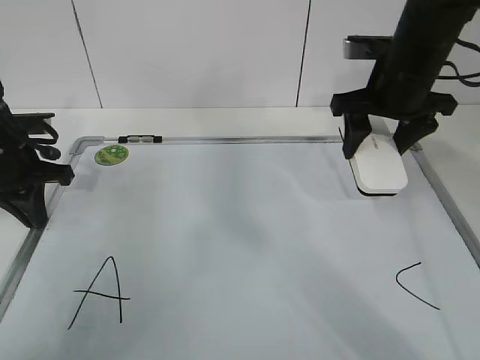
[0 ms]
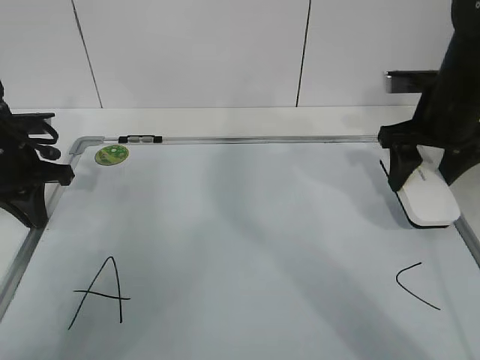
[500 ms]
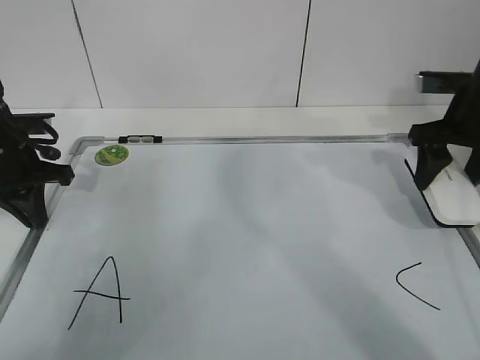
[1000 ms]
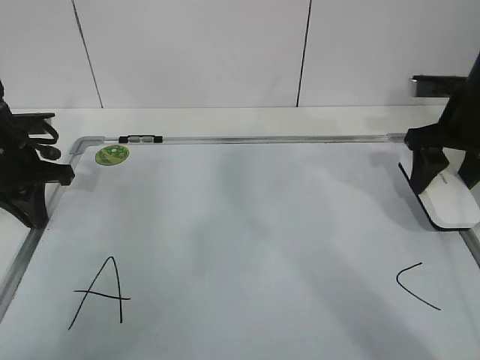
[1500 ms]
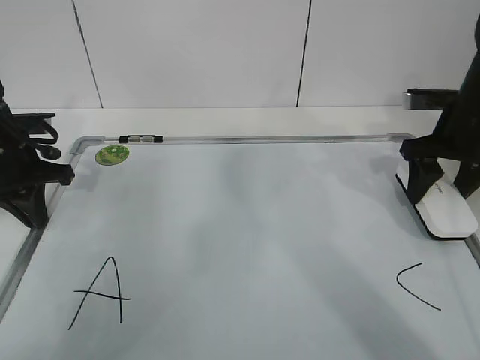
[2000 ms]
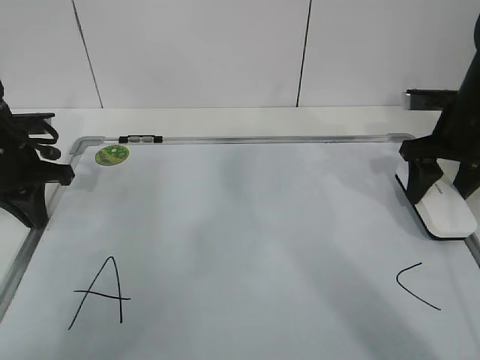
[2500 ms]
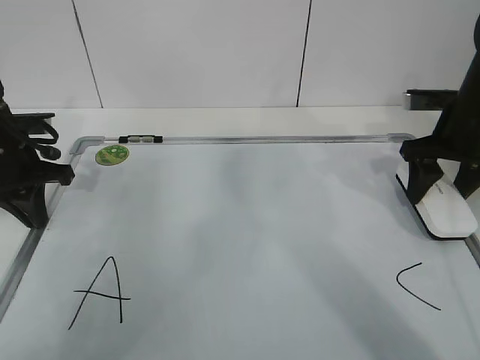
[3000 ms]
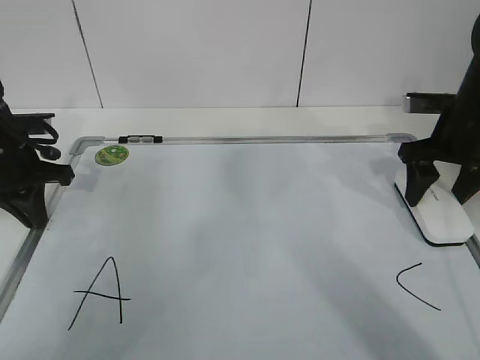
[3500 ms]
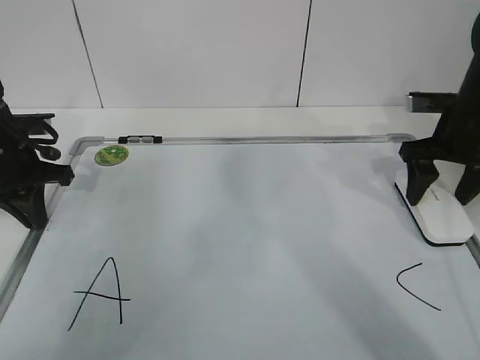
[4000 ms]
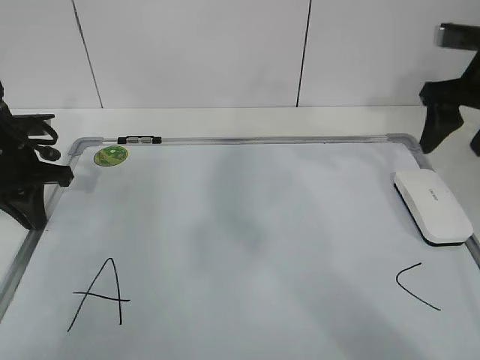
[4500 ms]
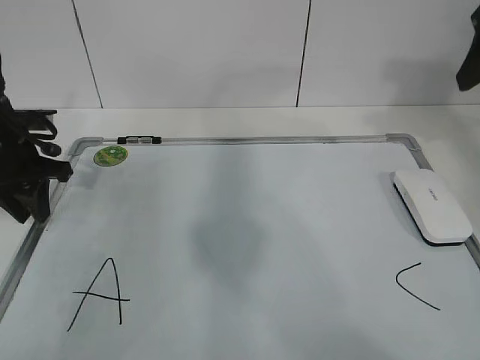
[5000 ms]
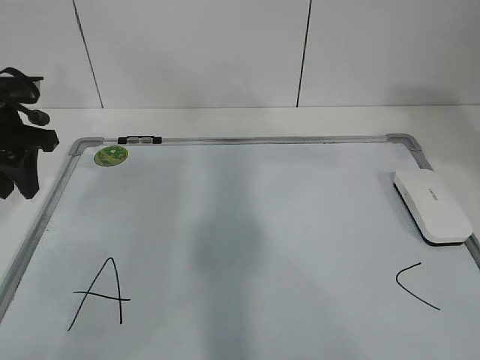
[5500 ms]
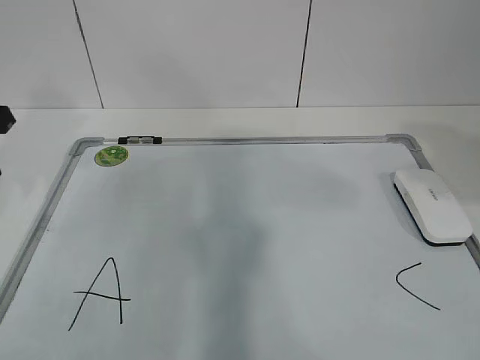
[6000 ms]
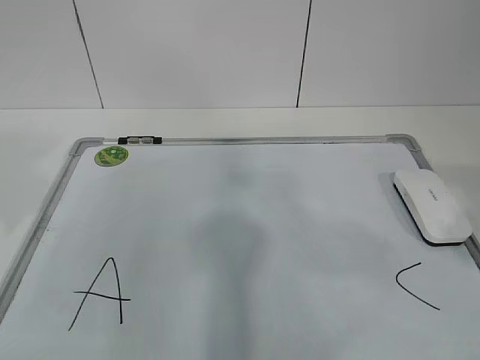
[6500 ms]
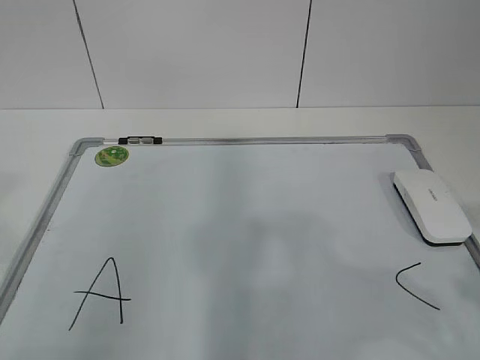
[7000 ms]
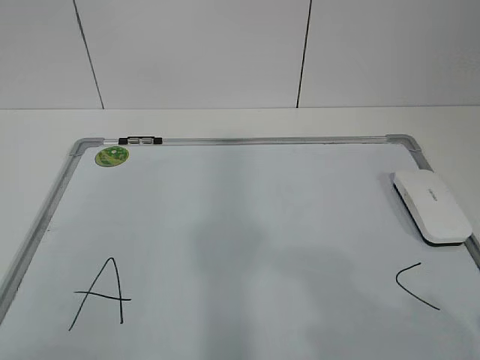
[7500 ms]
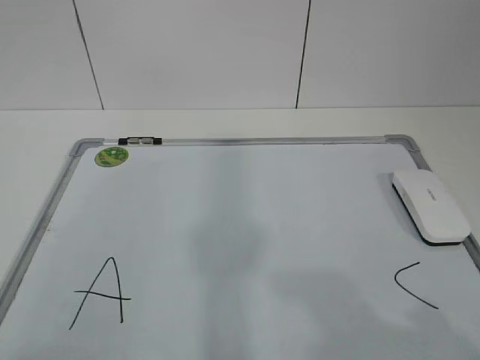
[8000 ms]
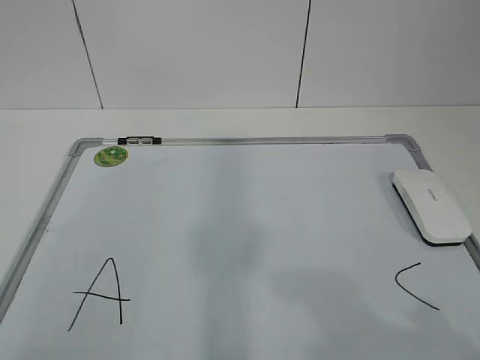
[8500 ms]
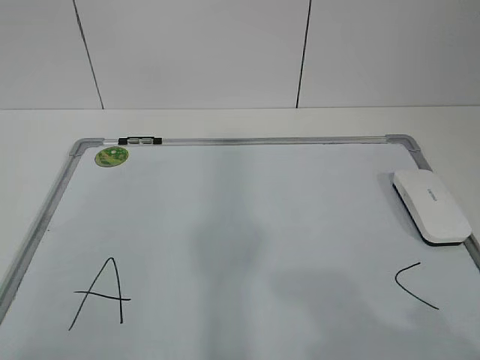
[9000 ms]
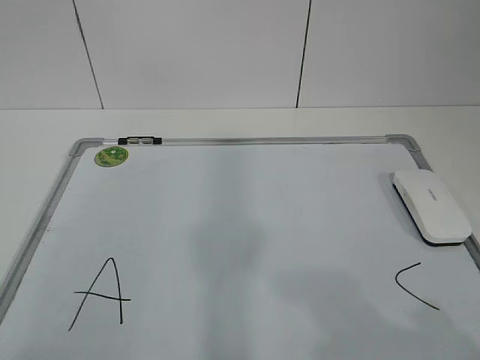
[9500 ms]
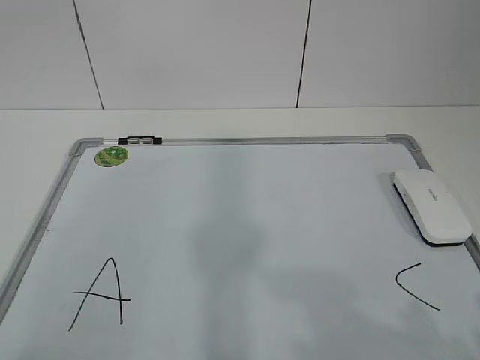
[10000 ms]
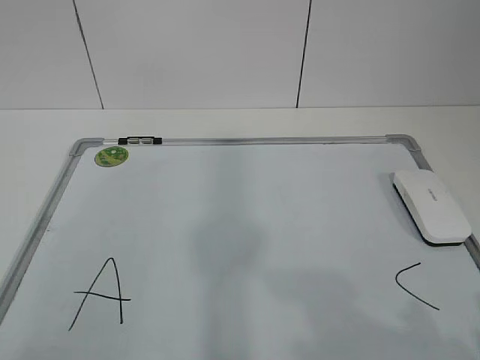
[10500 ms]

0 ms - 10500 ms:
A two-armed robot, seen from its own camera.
Task of the whole recording: pick up the eraser on the blackboard and erase the letter "B".
0 ms - 2000 ms: The right gripper travels to the right and downward by about 10 cm.
2000 ms - 4000 ms: The right gripper opens up.
4000 ms - 6500 ms: The left gripper heads backward and upward, covering approximately 25 cm, and opens up. Meanwhile the right gripper shifts some 35 cm backward and upward, and closes up.
6500 ms - 8500 ms: The right gripper shifts roughly 15 cm backward and downward.
8500 ms - 10500 ms: Both grippers stay put.

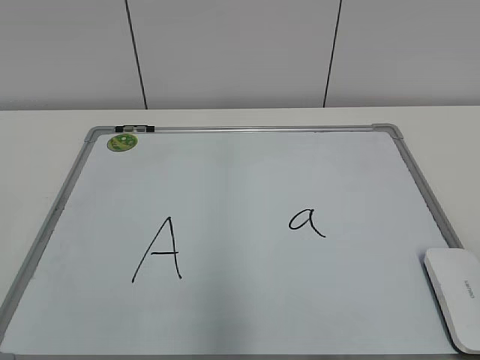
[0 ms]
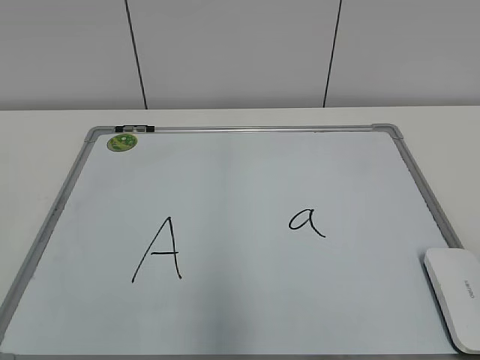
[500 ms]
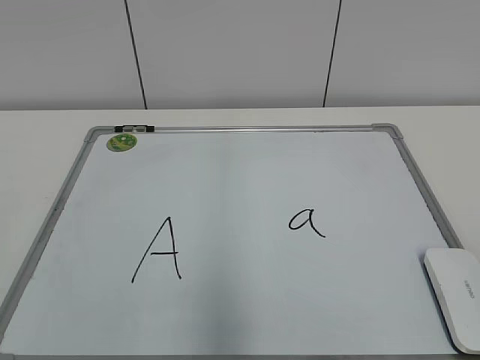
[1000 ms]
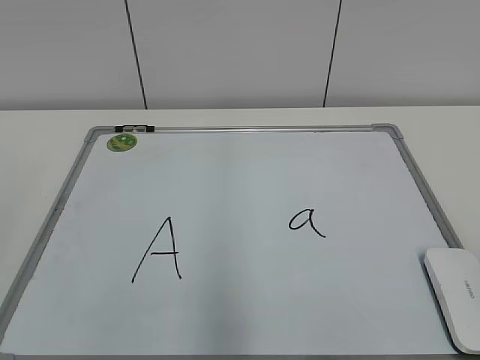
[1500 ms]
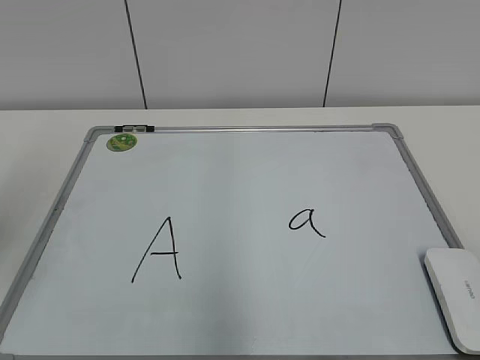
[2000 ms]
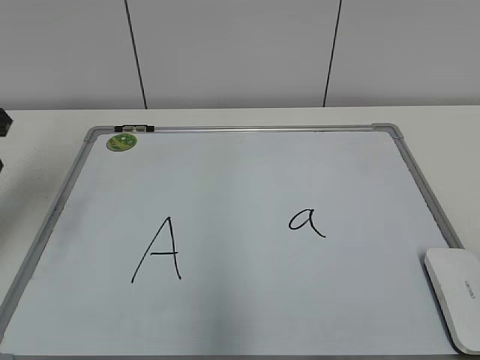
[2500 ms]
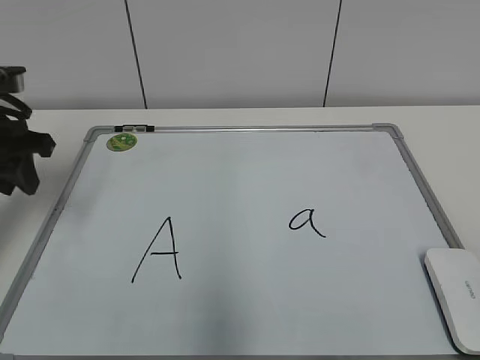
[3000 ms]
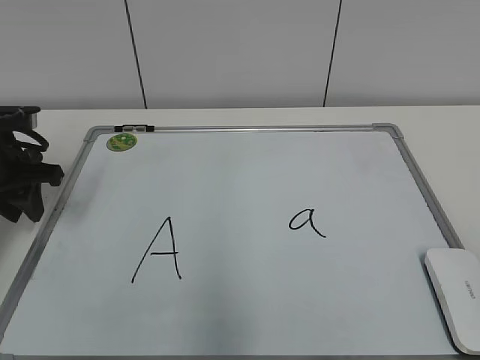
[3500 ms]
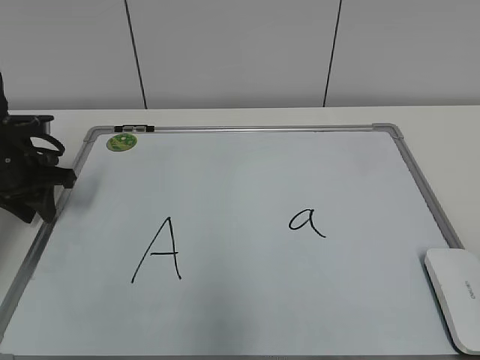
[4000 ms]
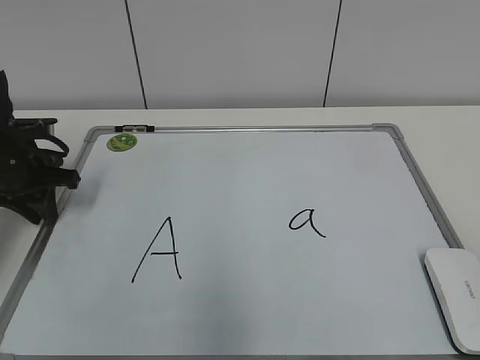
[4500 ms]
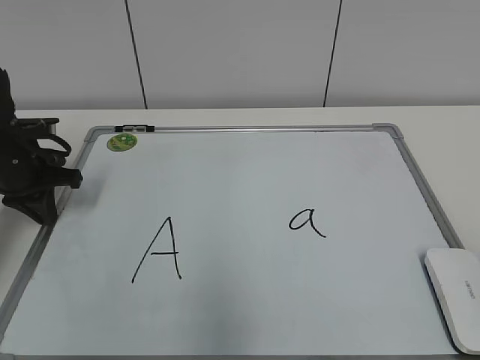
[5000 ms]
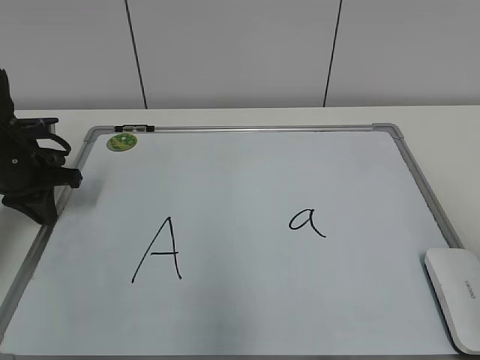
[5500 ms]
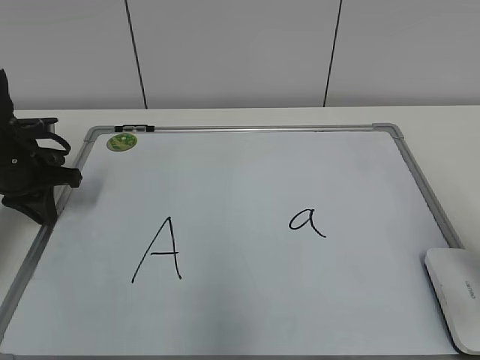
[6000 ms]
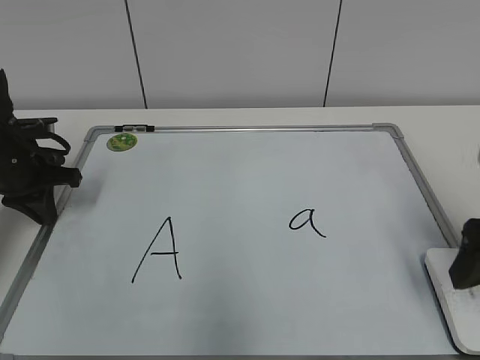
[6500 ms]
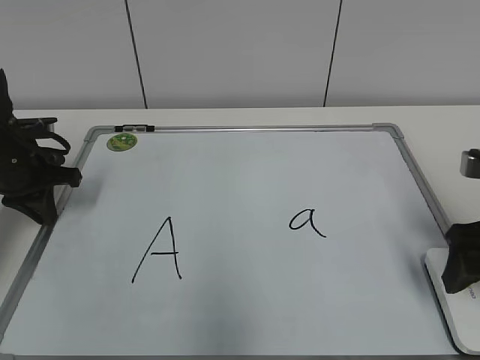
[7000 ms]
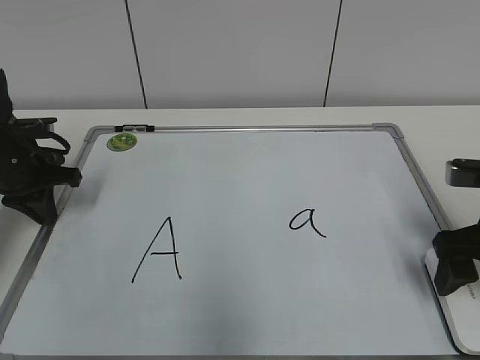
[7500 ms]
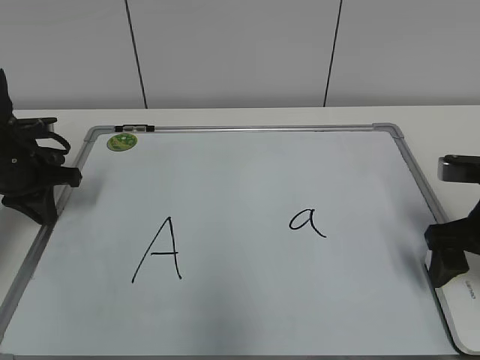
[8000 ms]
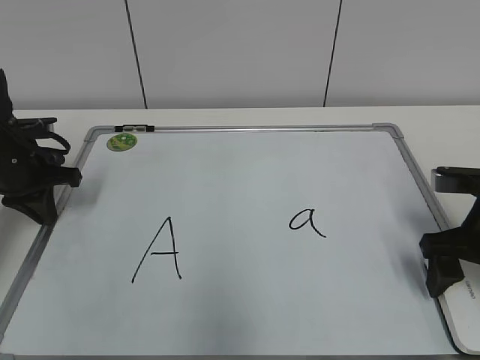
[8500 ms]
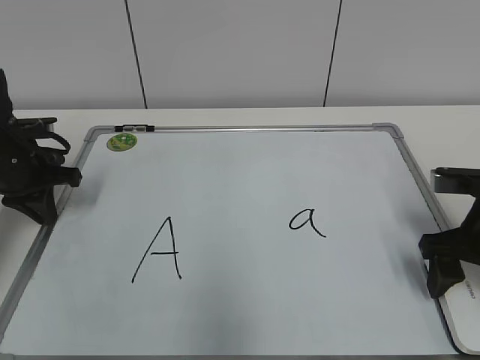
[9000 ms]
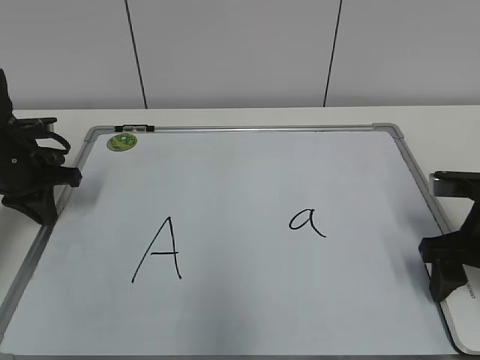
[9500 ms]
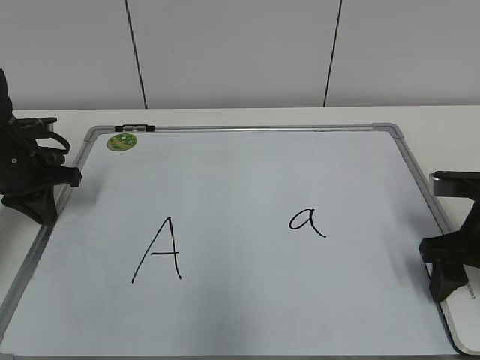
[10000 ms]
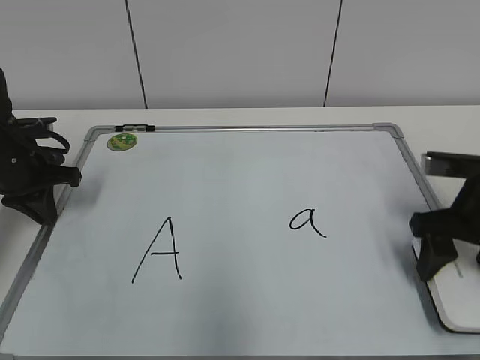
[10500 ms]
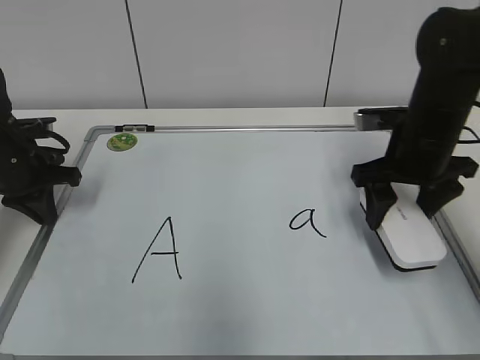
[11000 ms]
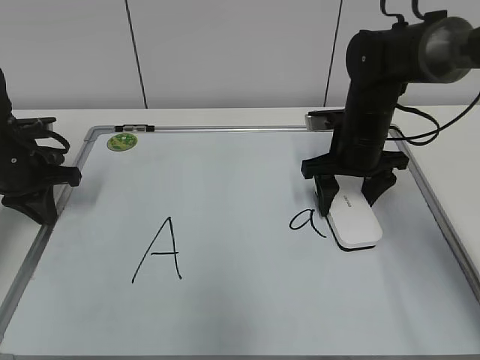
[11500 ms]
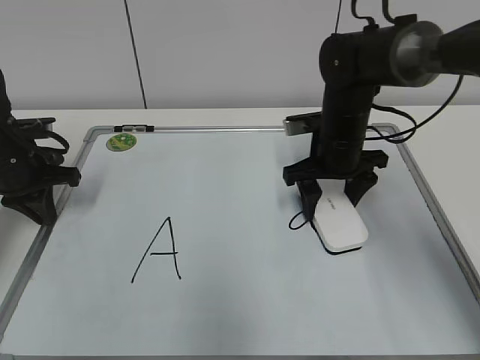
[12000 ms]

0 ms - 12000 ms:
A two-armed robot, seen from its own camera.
Task of the whole recording: pick up the eraser on the blackboard and erase the letter "a".
Step, 0 ms - 4500 ms: Hold the drawing board steady with your left hand.
Step, 5000 ms - 9500 ms: Grab the eraser with your right hand.
2000 ms - 4000 ms: The left gripper travels forward and downward by some 25 cm.
4000 ms - 6000 ms: The right gripper heads forward, covering some 15 cm. The left gripper closes its fingers.
6000 ms - 8000 ms: The right gripper travels forward and downward by approximately 15 cm, and opens its fingers.
8000 ms - 10000 ms: The right gripper closes up.
10000 ms - 12000 ms: The right gripper heads forward and to the left, covering approximately 20 cm.

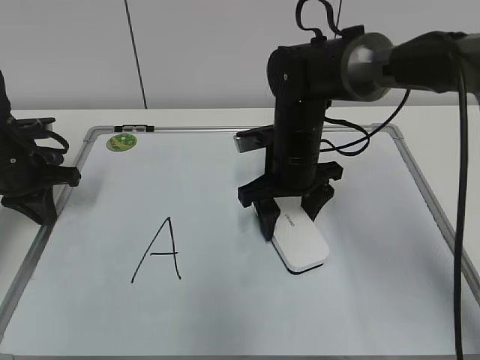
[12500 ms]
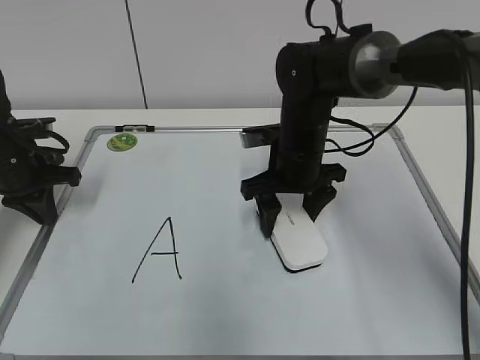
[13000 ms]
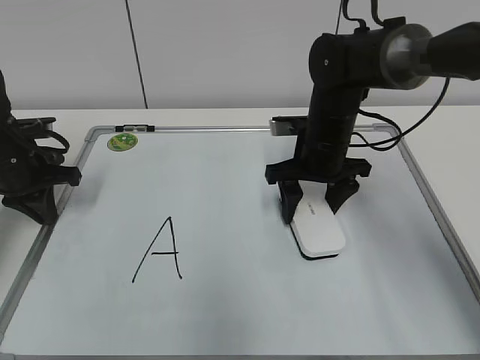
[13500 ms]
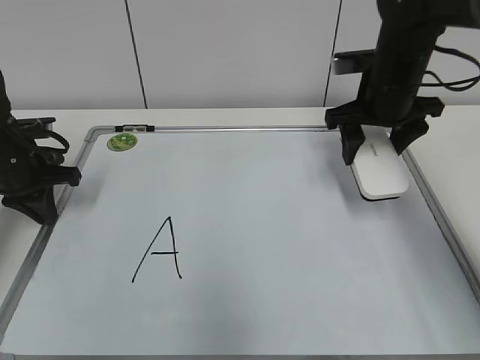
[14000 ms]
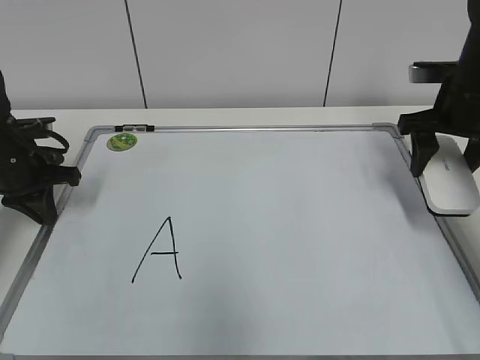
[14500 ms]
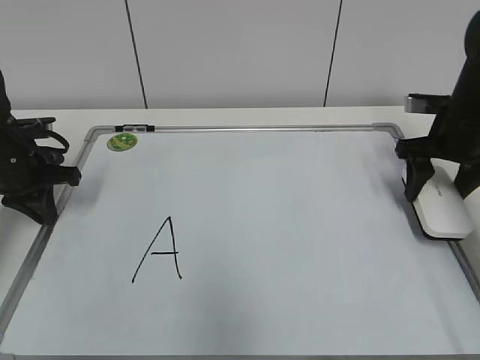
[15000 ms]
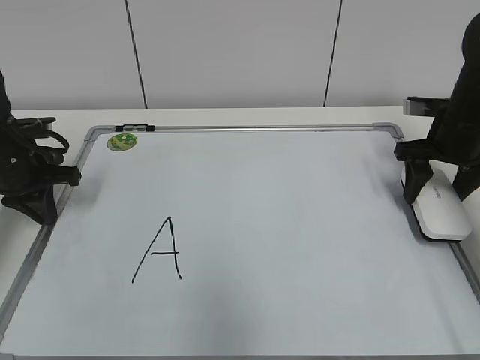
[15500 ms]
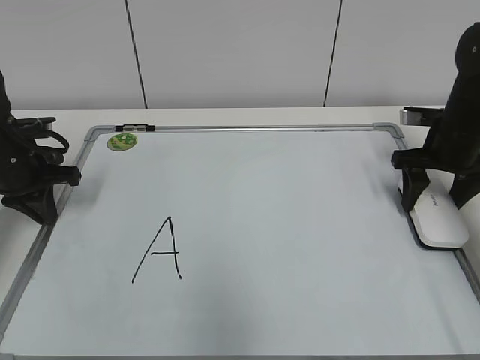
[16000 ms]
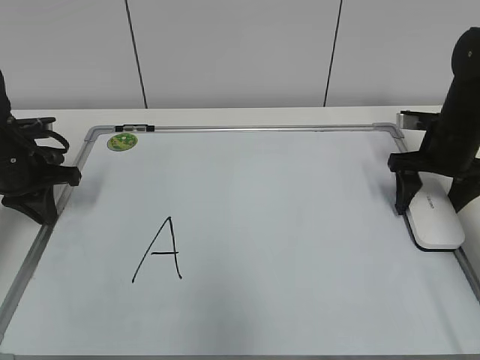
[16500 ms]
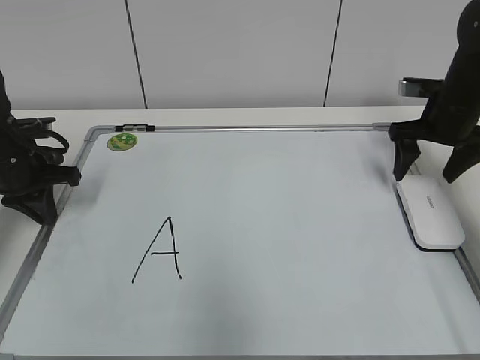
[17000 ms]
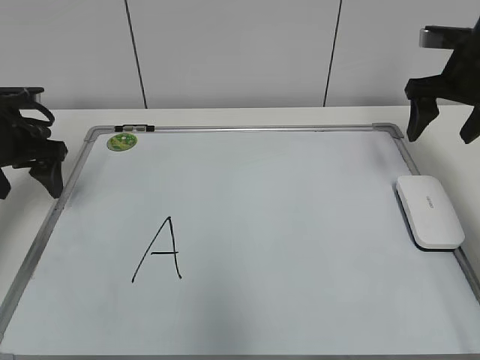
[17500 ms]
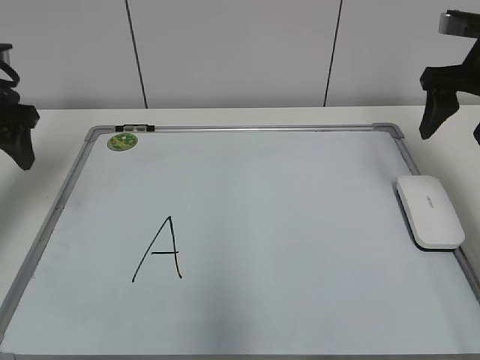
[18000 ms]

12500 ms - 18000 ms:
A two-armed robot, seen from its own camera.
Task of the whole recording: pick up the eraser on the blackboard and erase the letter "a".
Step, 14000 ms - 16500 ms: Put down the eraser with your right hand.
12500 ms - 14500 ms: The right gripper goes approximately 20 cm to the right.
14500 ms - 16000 ms: The right gripper heads downward, covering roughly 5 cm.
16000 ms - 18000 ms: Both grippers travel together upward, roughly 10 cm. The left gripper opens up. Meanwhile the right gripper opens its fingers.
